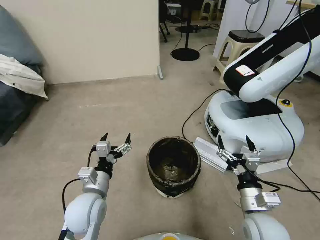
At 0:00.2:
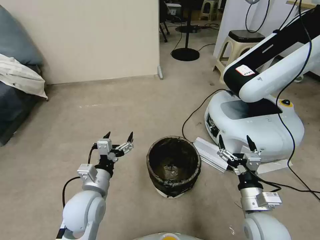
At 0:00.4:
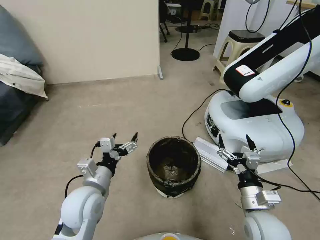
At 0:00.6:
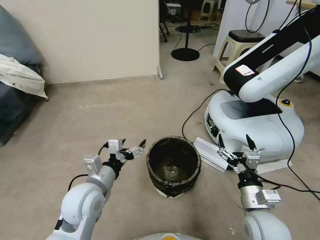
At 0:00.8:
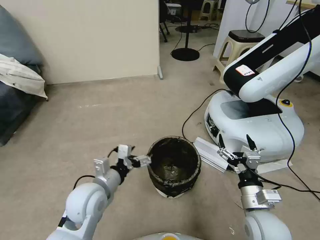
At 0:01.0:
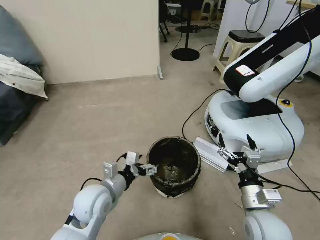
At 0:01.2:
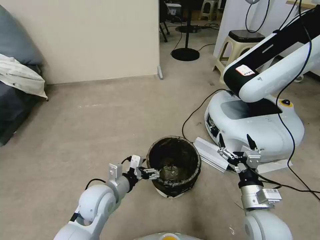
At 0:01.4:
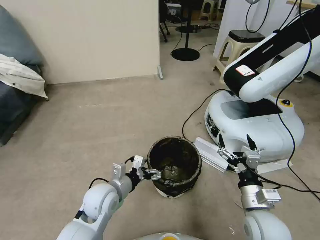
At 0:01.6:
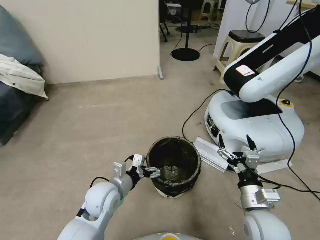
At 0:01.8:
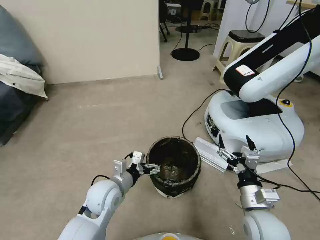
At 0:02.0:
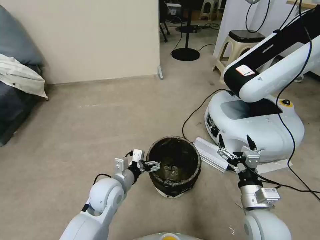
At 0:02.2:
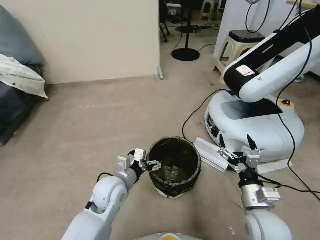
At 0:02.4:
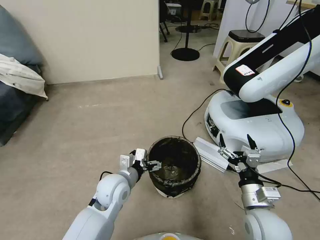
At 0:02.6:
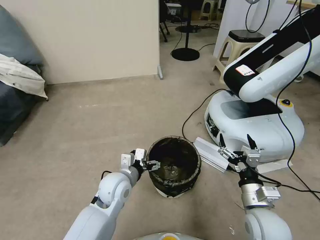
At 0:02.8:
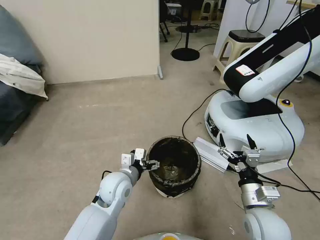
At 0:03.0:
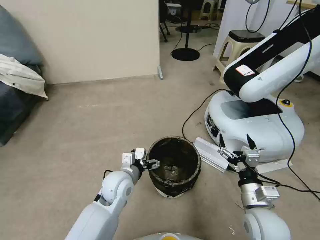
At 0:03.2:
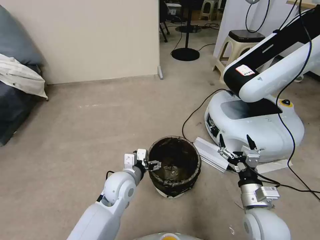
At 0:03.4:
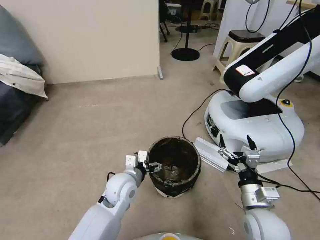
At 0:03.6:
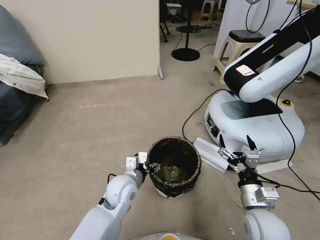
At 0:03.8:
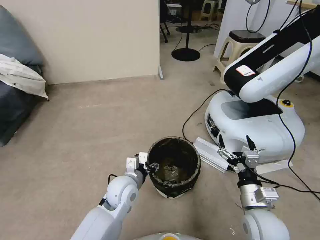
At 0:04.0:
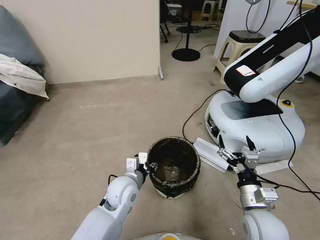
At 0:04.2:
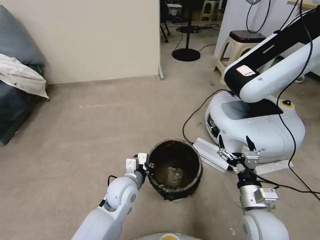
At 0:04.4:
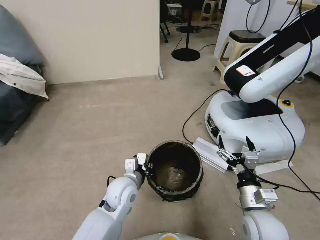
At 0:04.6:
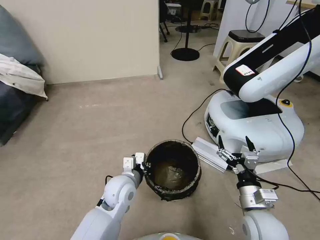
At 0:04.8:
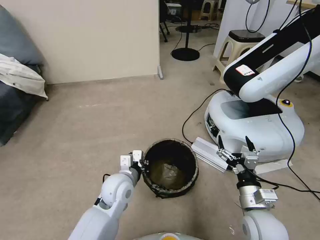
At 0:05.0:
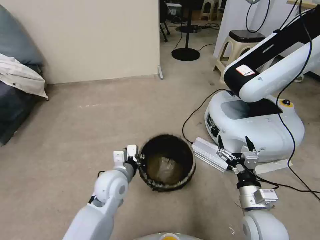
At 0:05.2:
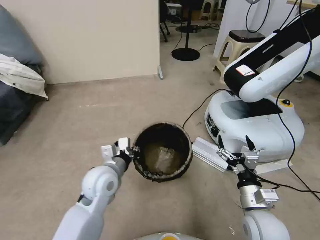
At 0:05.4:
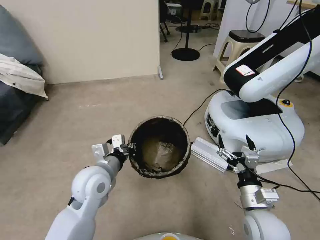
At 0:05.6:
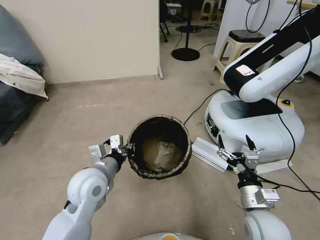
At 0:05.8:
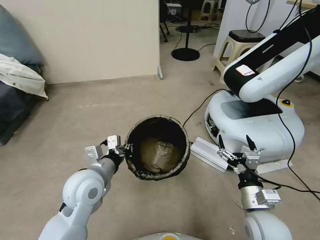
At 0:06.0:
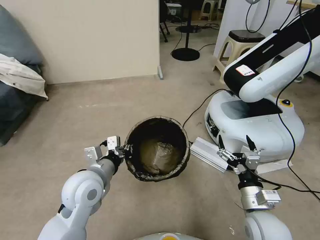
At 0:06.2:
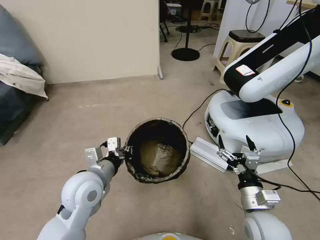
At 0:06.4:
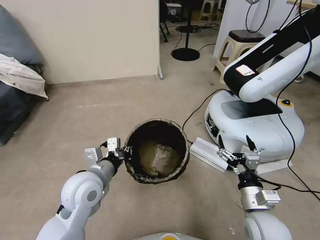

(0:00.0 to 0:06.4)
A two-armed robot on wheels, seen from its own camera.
Task of the whole recording: Pick up the trash can from the floor.
0:00.0 - 0:01.6: The left gripper changes place by some 5 cm.
0:01.6 - 0:03.2: The left gripper changes place by roughly 5 cm.
0:03.2 - 0:04.8: The left gripper closes.
0:04.8 - 0:06.4: The left gripper shifts some 10 cm upward and to the left.
